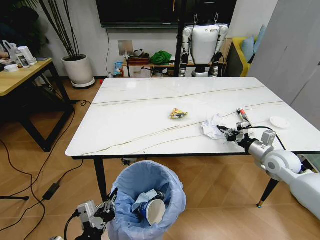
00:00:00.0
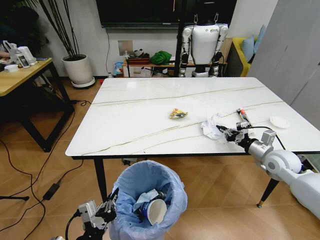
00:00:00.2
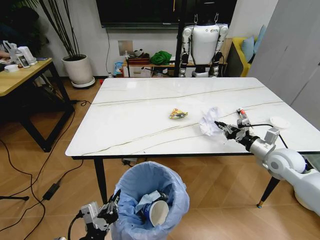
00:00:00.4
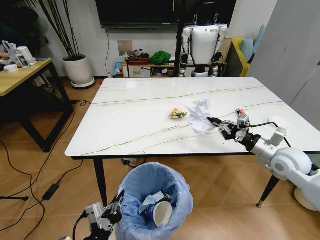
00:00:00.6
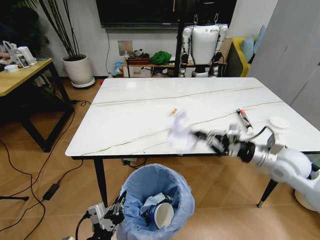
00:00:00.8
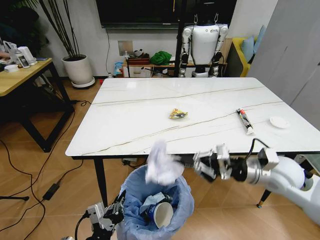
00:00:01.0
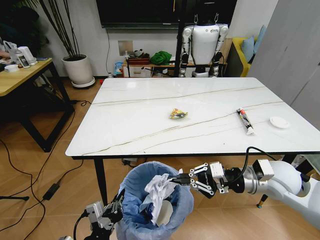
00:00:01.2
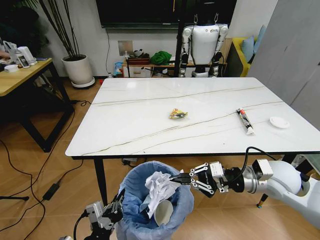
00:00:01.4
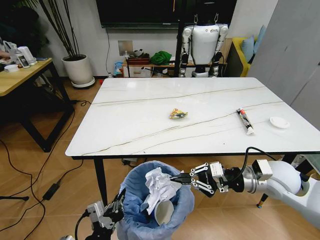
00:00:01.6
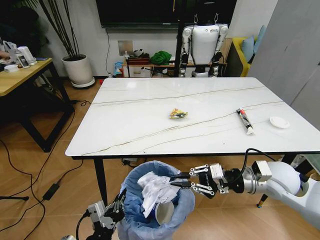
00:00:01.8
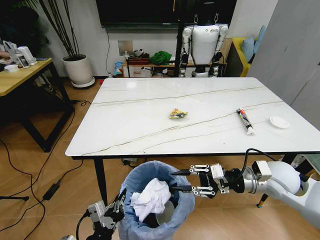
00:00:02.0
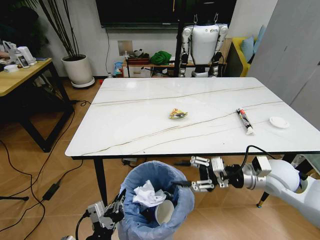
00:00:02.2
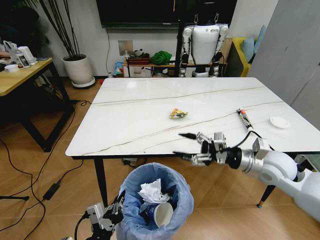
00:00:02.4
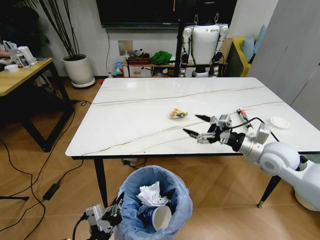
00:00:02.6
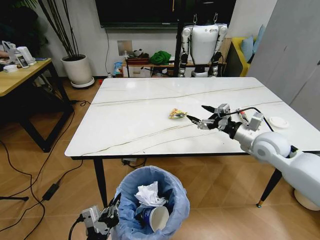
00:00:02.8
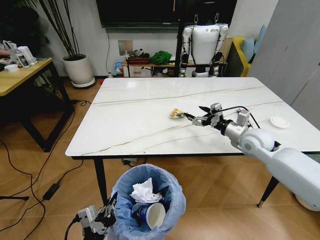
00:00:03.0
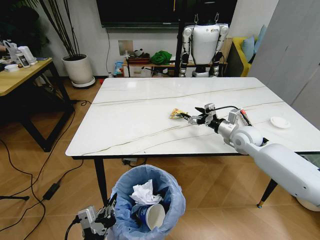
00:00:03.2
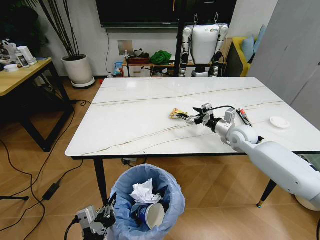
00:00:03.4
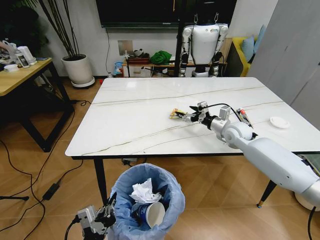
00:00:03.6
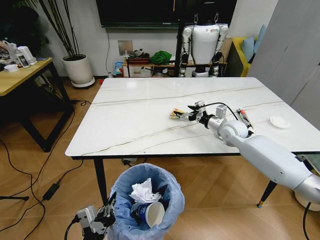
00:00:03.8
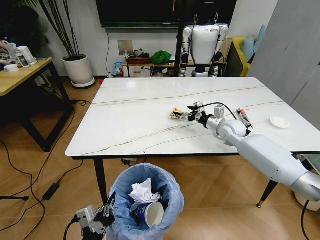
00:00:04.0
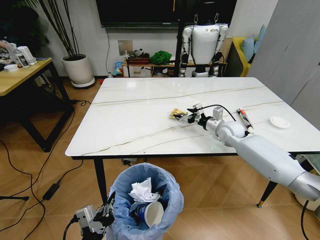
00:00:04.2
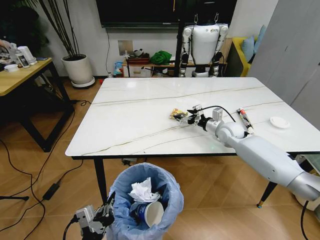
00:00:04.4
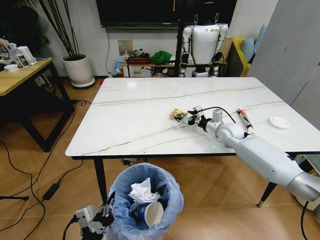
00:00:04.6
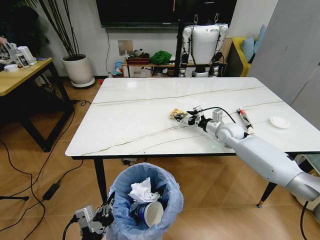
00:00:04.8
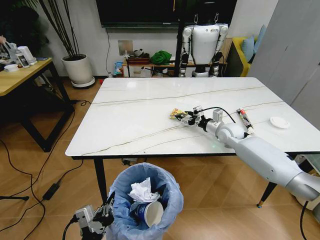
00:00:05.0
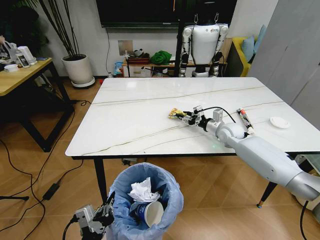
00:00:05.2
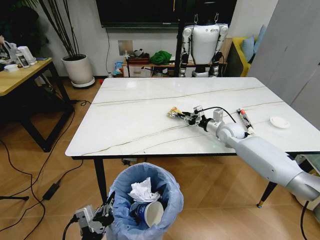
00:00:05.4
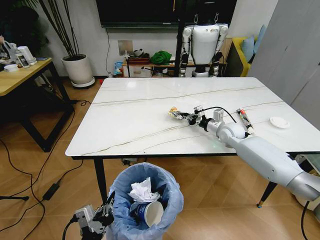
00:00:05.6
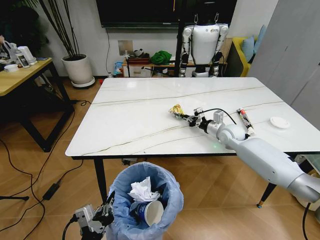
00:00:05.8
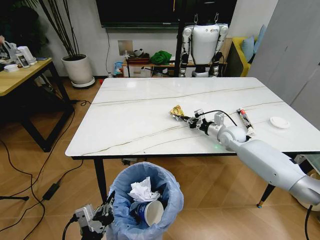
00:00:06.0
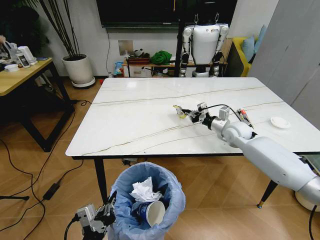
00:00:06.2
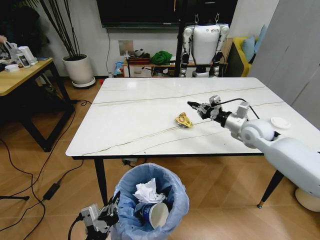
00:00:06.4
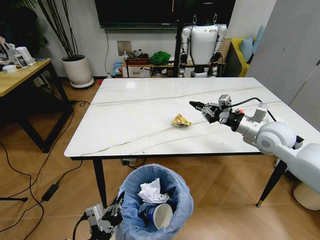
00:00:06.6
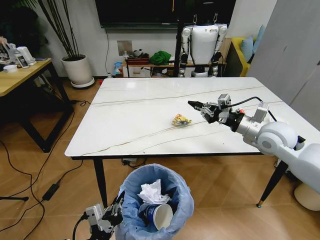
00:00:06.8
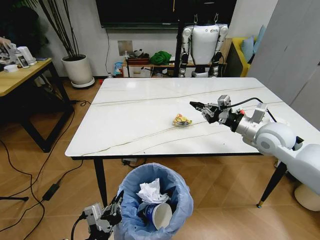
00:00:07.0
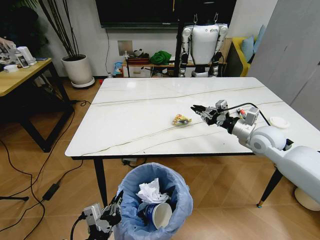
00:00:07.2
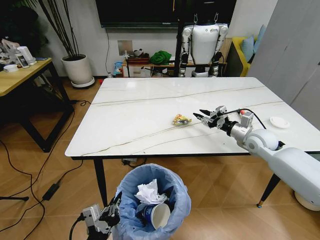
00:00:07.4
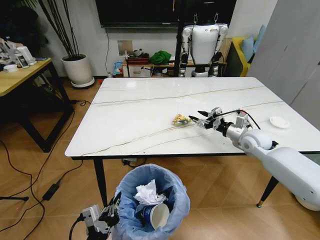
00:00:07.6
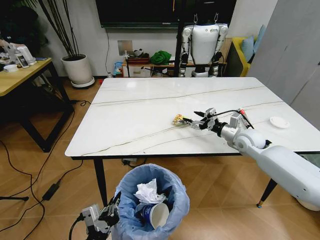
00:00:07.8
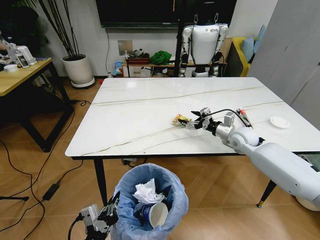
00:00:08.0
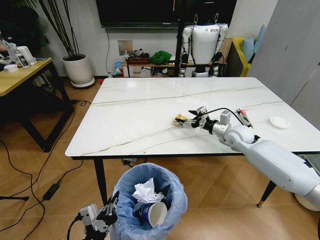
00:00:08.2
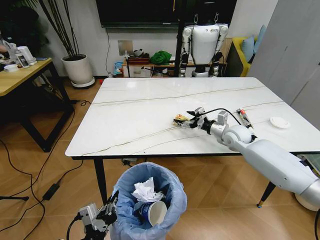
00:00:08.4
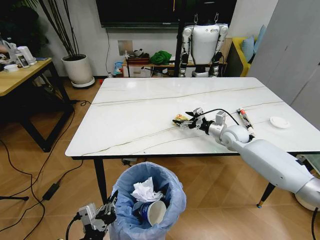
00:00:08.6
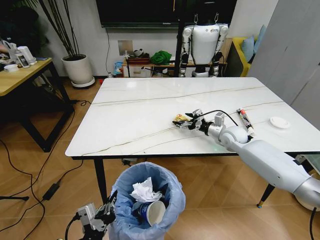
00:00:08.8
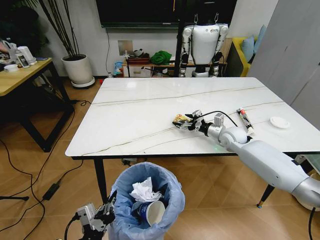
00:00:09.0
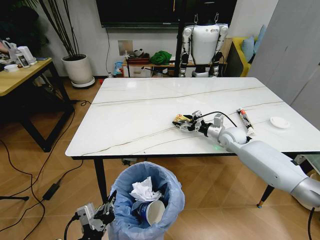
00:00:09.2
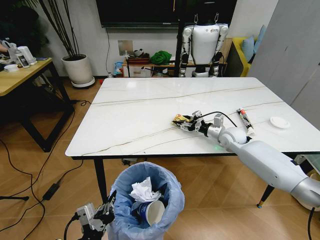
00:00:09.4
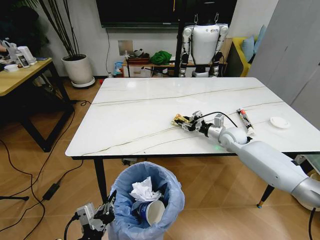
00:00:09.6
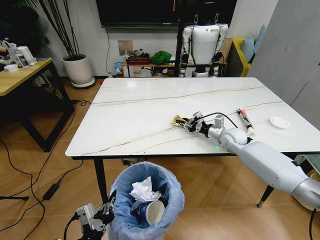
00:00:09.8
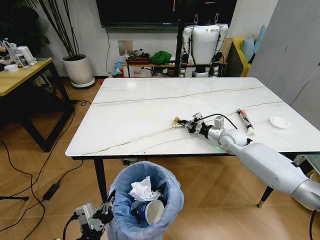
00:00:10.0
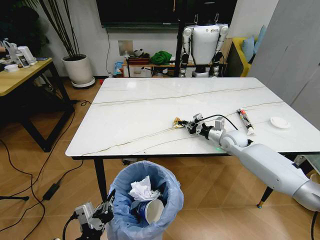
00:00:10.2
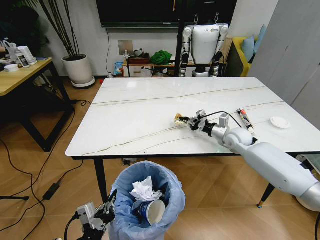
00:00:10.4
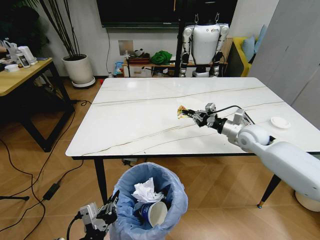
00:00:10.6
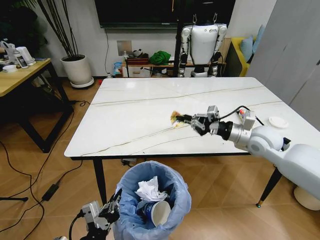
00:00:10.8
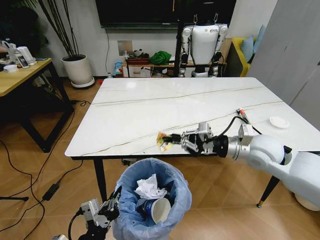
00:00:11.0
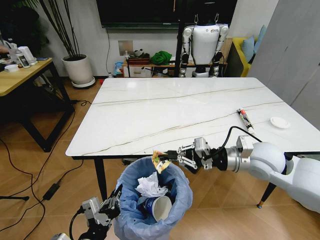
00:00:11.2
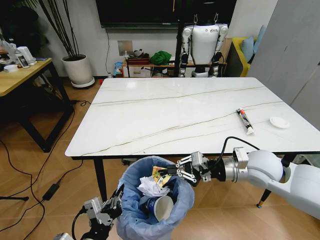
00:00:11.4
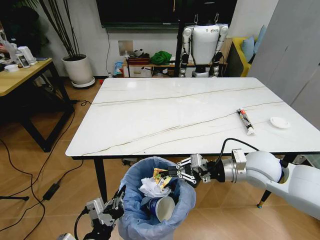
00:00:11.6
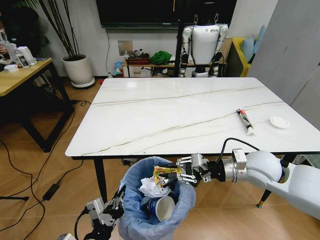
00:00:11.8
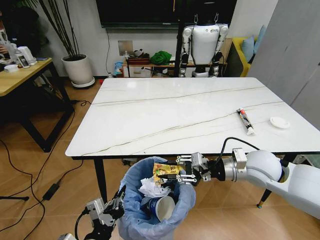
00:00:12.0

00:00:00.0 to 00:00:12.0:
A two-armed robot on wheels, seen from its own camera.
Task of the whole recording: Pick up the trash bin and place the trash from the table into it.
00:00:00.0 to 00:00:01.6: The right gripper is displaced to the left, backward and upward by about 15 cm.
00:00:01.6 to 00:00:03.0: The right gripper heads forward, covering approximately 15 cm, and opens.
00:00:03.0 to 00:00:04.4: The right gripper goes some 10 cm forward and downward.
00:00:04.4 to 00:00:06.0: The right gripper closes its fingers.
00:00:06.0 to 00:00:07.6: The right gripper travels backward and to the right by roughly 10 cm, travels upward and back again, roughly 15 cm each way, and opens up.
00:00:07.6 to 00:00:09.0: The right gripper travels to the left and forward by about 10 cm, and opens its fingers.
00:00:09.0 to 00:00:10.4: The right gripper closes its fingers.
00:00:10.4 to 00:00:12.0: The right gripper is displaced backward and upward by approximately 20 cm, and opens its fingers.

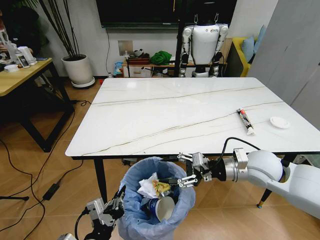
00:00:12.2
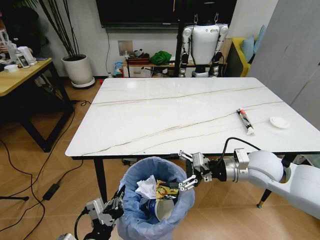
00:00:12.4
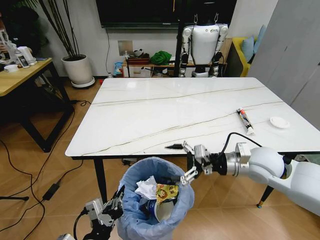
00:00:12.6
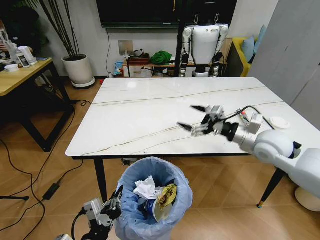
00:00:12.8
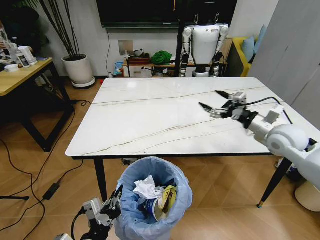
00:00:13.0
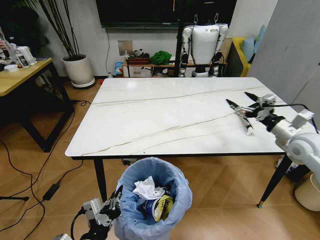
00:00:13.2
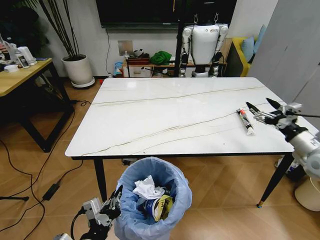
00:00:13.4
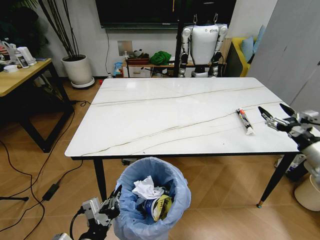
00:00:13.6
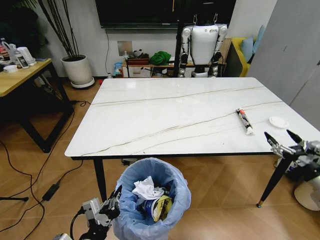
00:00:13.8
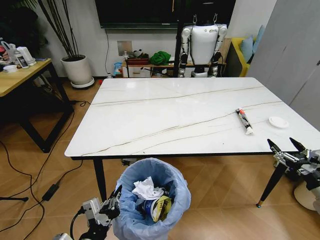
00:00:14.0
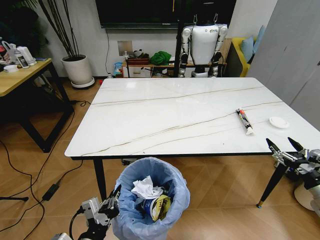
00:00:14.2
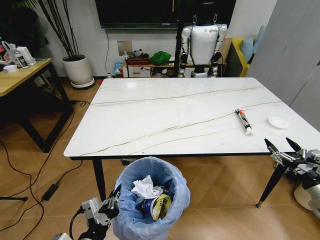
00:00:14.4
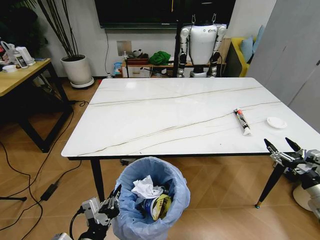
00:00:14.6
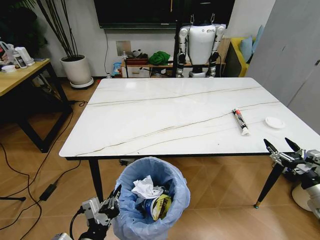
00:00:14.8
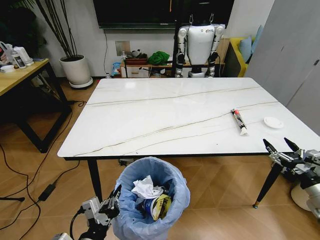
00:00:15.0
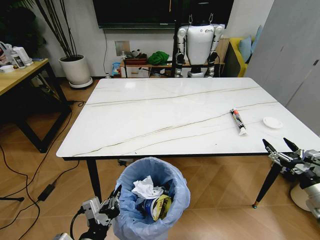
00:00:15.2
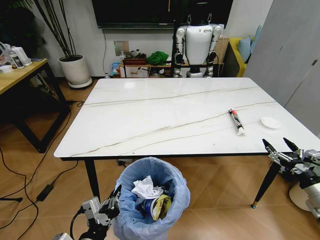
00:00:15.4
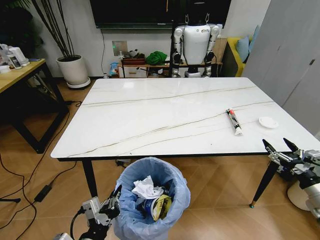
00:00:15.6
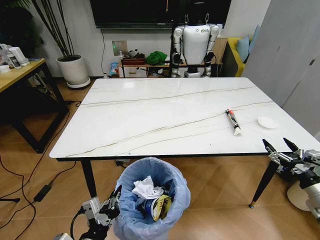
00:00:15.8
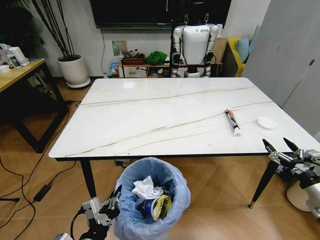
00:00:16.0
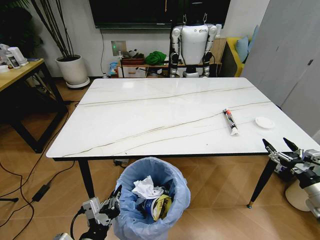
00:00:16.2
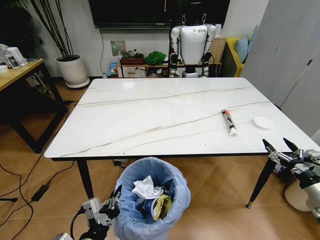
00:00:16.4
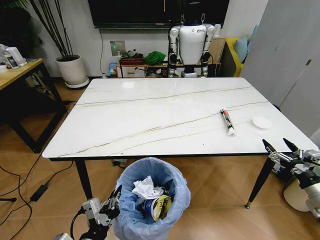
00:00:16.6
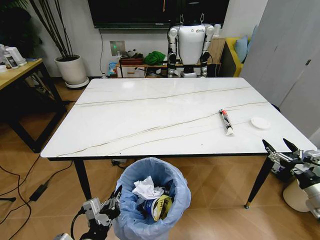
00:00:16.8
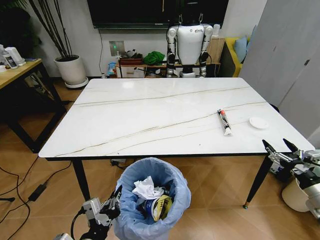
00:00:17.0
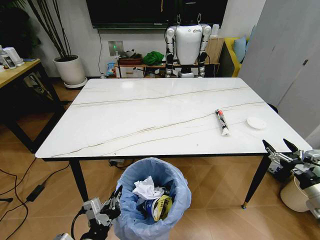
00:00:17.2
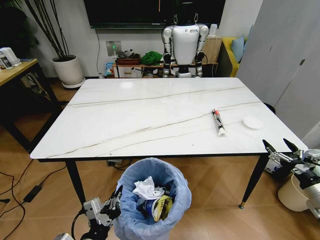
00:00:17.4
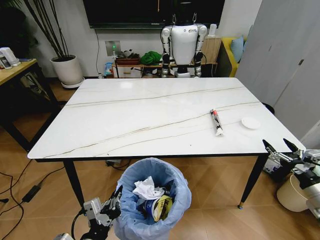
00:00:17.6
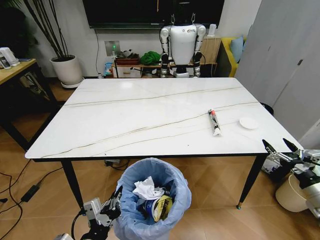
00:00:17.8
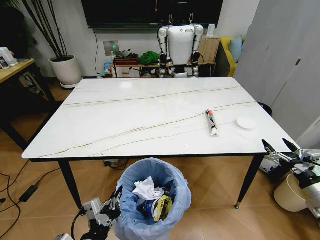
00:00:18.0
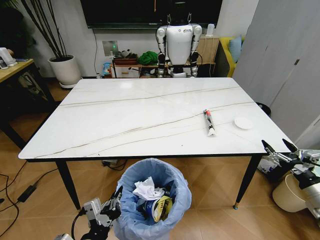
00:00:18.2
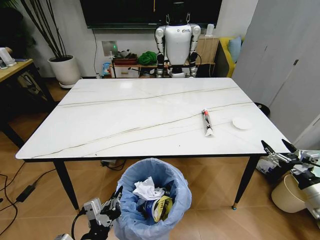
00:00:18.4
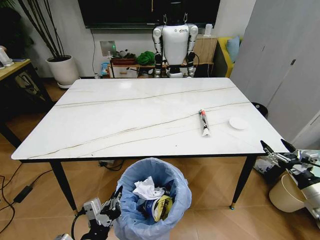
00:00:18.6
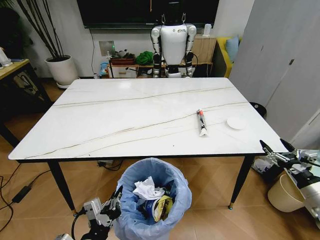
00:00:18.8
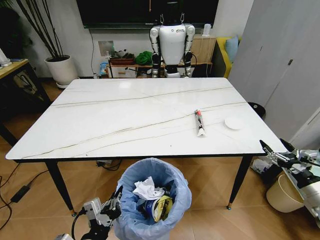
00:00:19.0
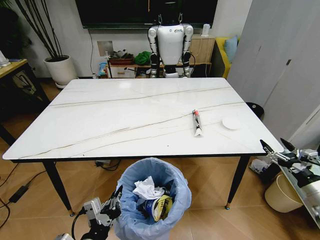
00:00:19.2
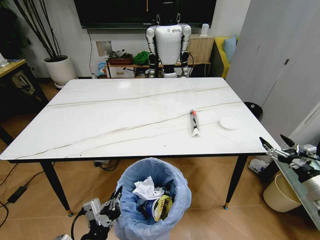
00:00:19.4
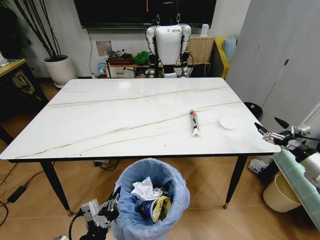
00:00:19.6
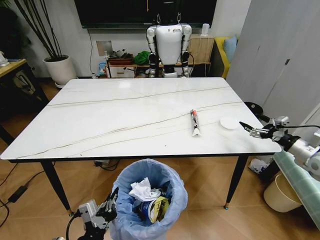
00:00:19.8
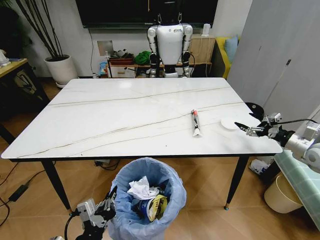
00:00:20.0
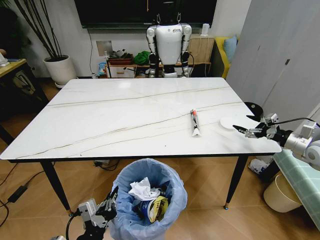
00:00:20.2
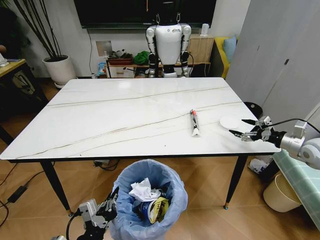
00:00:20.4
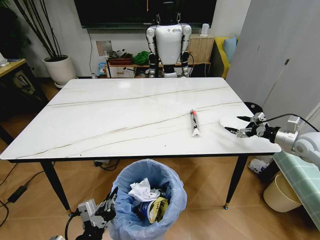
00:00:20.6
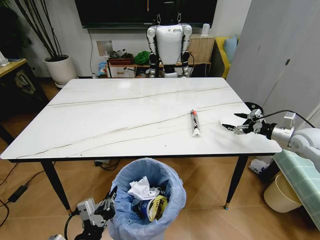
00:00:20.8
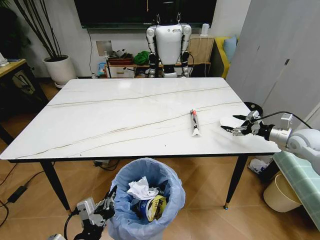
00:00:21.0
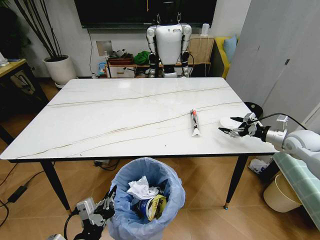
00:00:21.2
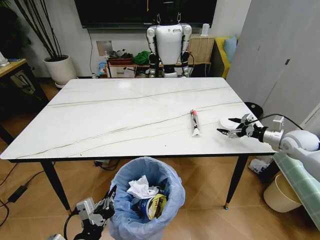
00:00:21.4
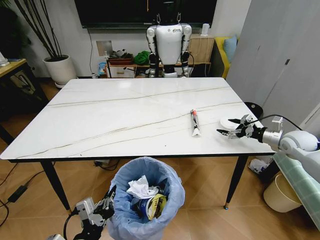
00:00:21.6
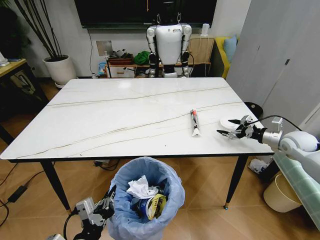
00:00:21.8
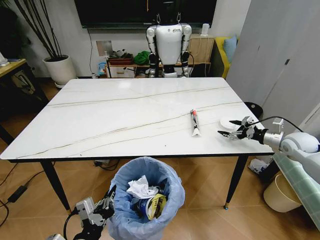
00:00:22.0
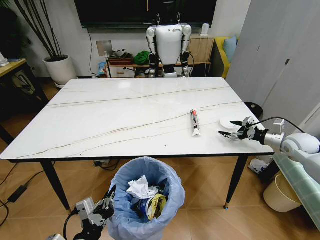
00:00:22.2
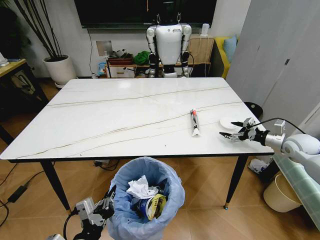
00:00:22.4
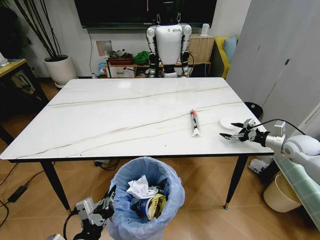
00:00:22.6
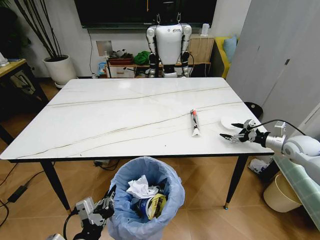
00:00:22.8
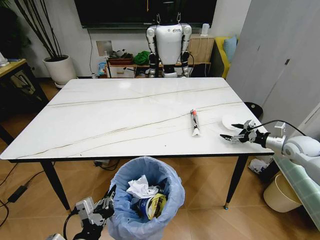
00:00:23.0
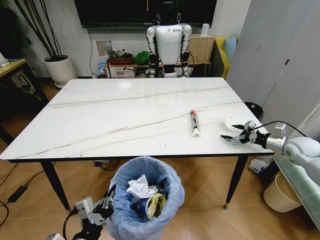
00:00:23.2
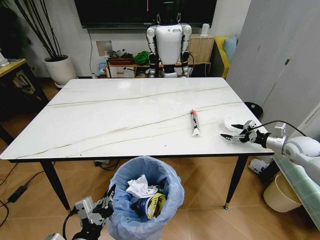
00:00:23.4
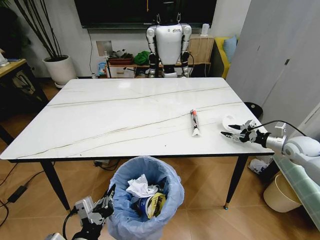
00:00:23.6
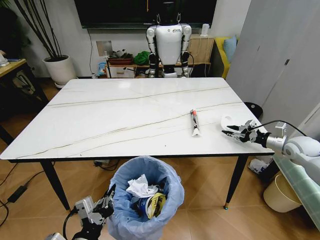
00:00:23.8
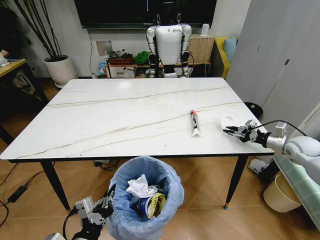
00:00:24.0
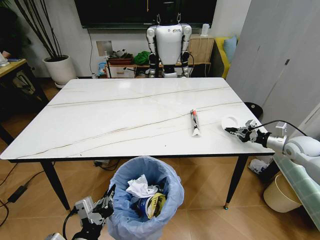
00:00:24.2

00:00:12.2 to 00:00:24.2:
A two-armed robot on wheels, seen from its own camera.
Task of the whole recording: Pick up the trash bin and place the trash from the table into it.
00:00:12.2 to 00:00:13.8: The right gripper heads to the right and backward, covering about 25 cm, and opens.
00:00:13.8 to 00:00:15.2: The grippers move only a little.
00:00:15.2 to 00:00:16.6: The two grippers keep their place.
00:00:18.2 to 00:00:19.8: The right gripper travels forward and upward by roughly 10 cm.
00:00:19.8 to 00:00:21.2: The right gripper shifts roughly 15 cm forward.
00:00:21.2 to 00:00:22.6: The grippers move only a little.
00:00:22.6 to 00:00:24.2: The right gripper closes its fingers.
